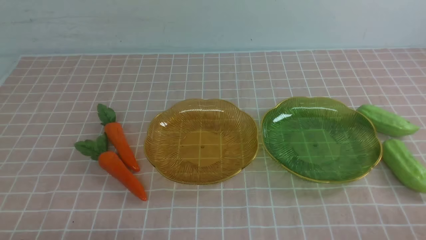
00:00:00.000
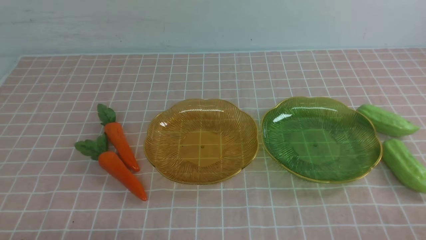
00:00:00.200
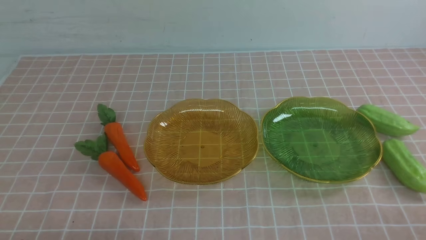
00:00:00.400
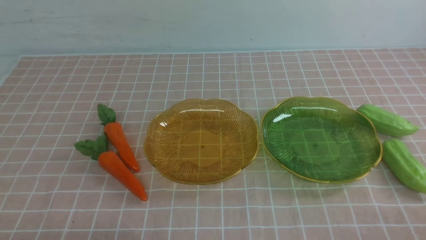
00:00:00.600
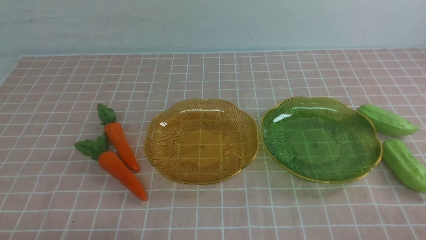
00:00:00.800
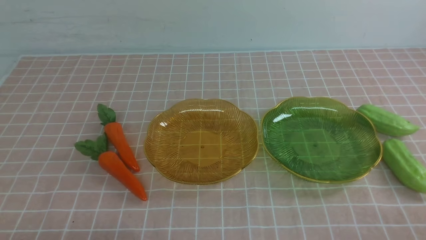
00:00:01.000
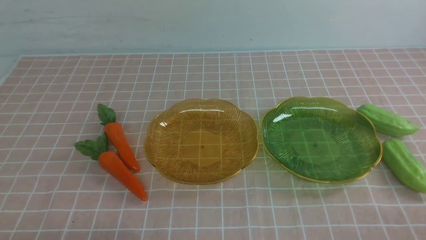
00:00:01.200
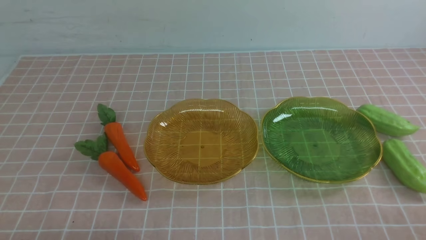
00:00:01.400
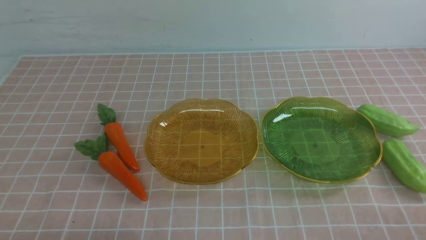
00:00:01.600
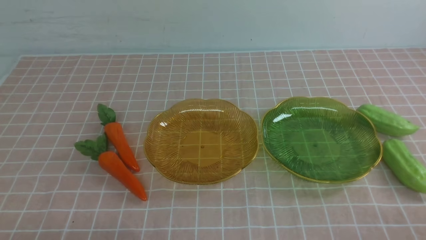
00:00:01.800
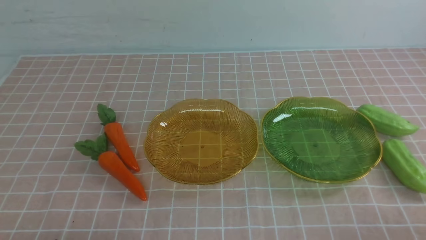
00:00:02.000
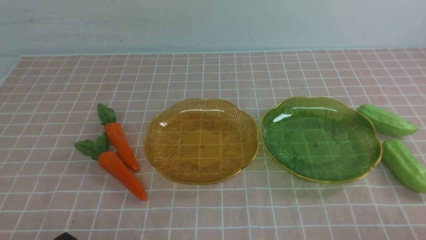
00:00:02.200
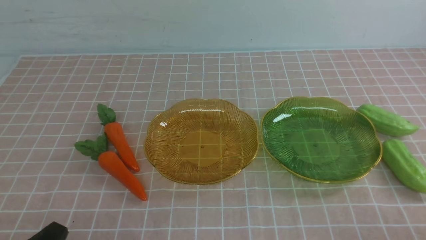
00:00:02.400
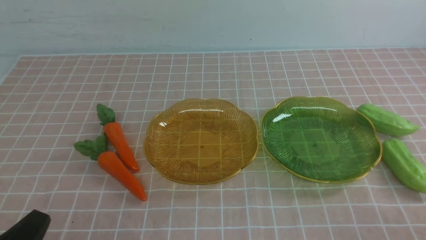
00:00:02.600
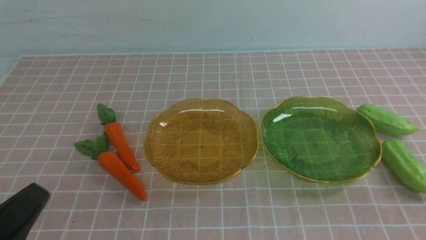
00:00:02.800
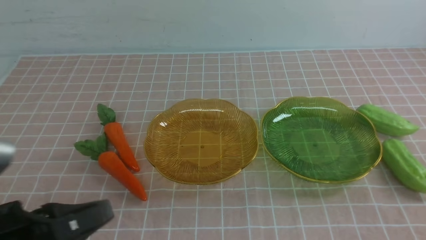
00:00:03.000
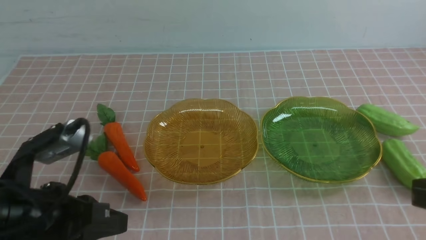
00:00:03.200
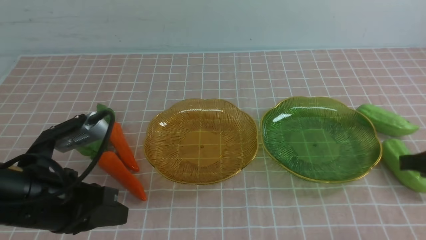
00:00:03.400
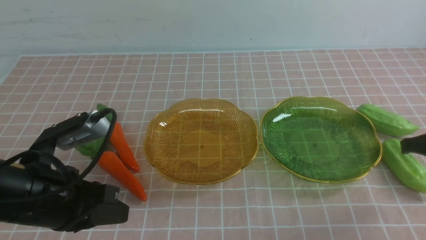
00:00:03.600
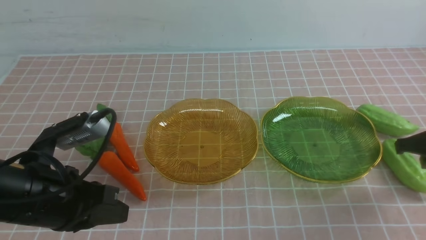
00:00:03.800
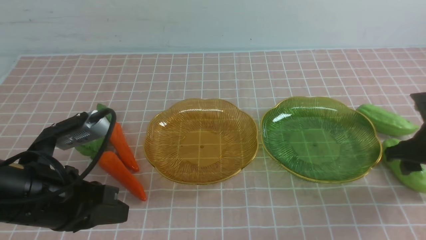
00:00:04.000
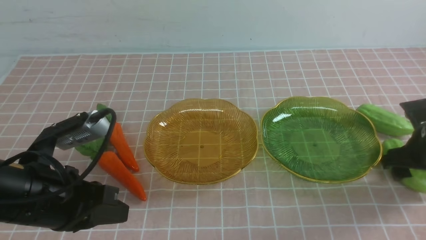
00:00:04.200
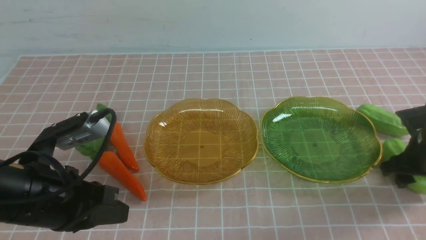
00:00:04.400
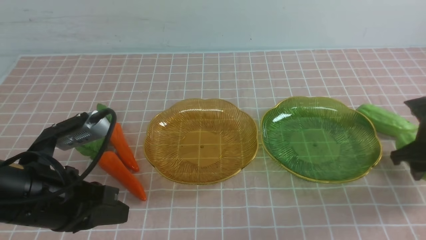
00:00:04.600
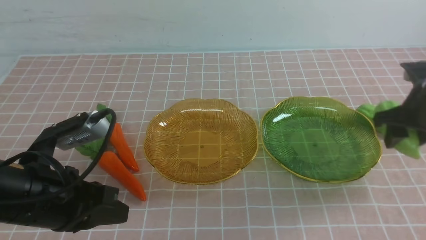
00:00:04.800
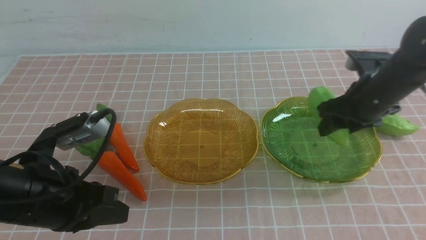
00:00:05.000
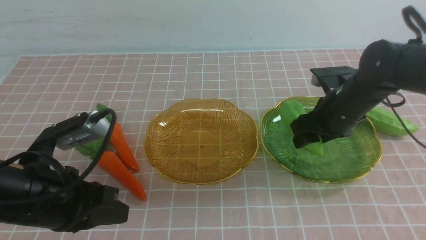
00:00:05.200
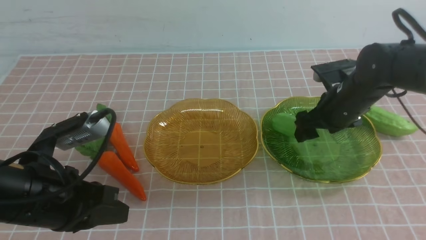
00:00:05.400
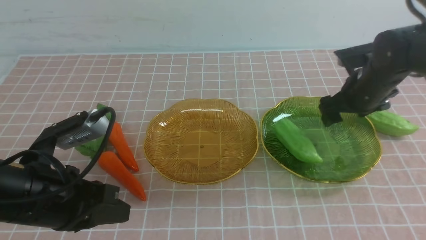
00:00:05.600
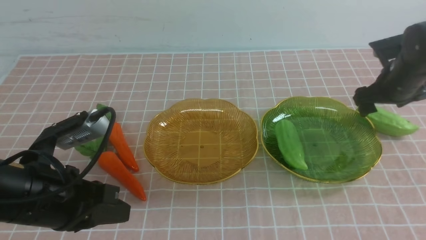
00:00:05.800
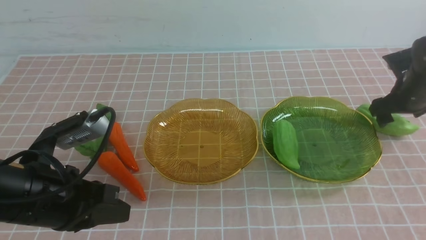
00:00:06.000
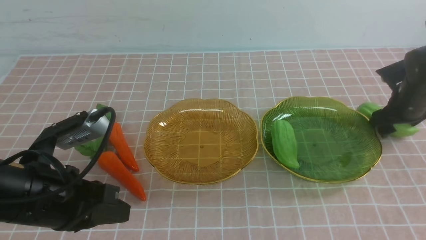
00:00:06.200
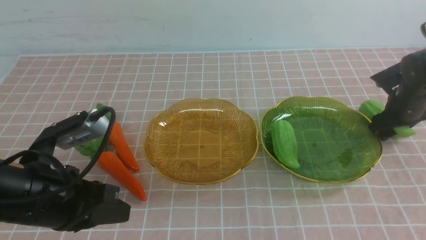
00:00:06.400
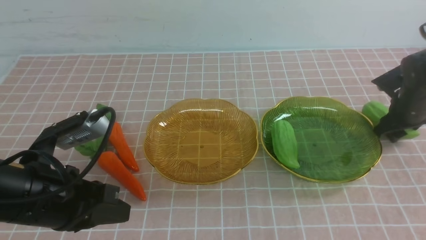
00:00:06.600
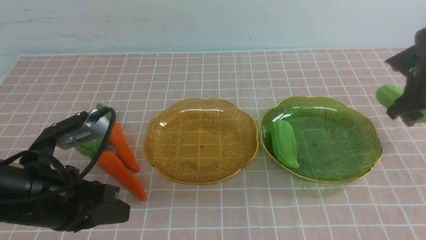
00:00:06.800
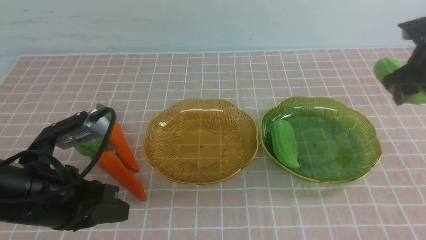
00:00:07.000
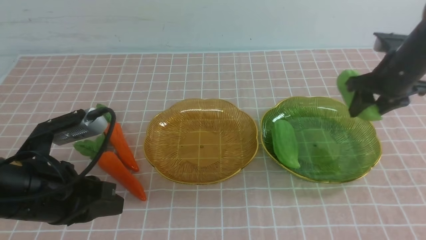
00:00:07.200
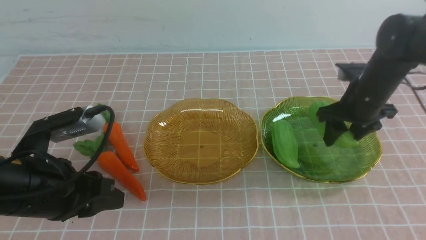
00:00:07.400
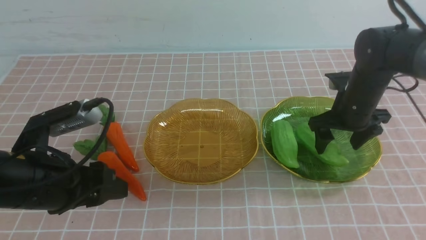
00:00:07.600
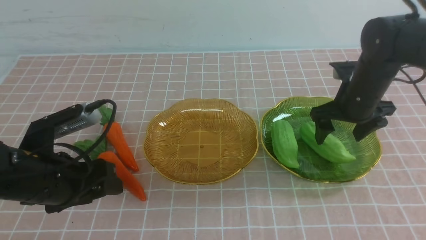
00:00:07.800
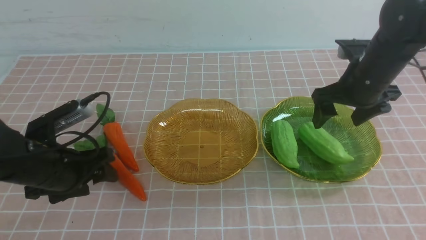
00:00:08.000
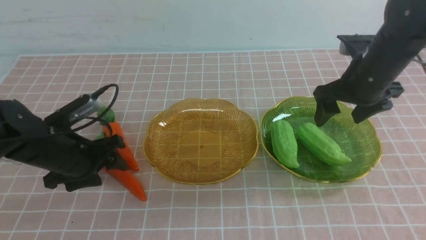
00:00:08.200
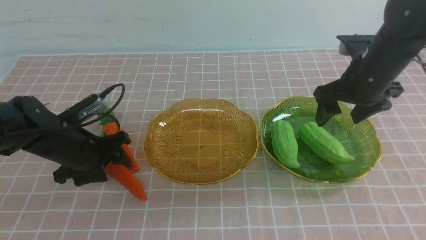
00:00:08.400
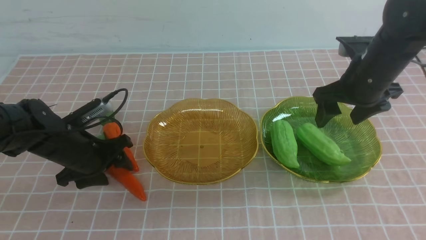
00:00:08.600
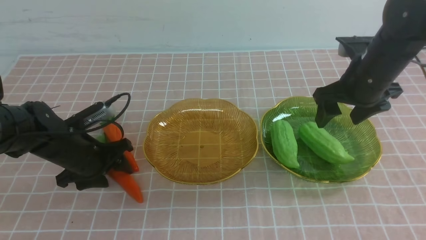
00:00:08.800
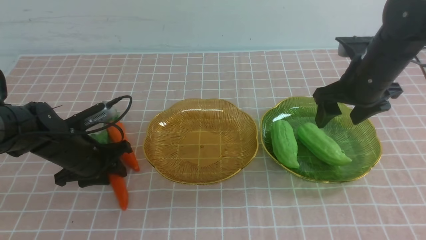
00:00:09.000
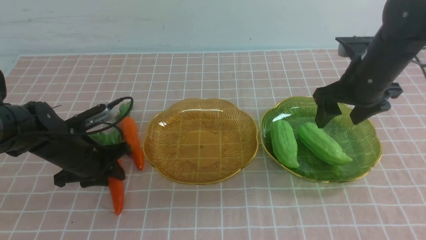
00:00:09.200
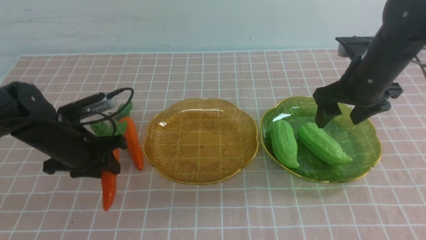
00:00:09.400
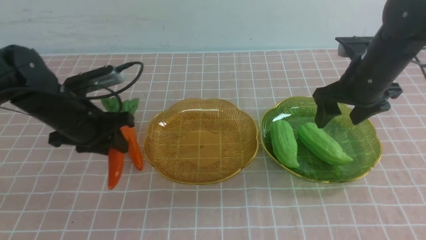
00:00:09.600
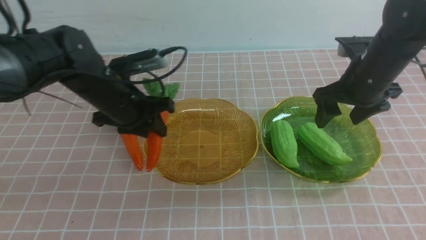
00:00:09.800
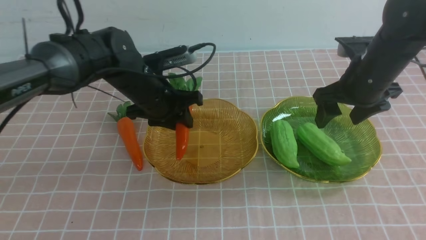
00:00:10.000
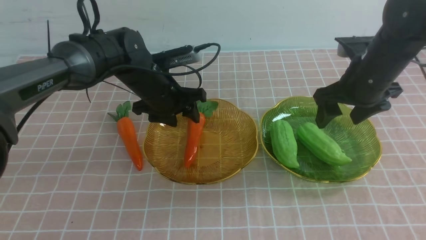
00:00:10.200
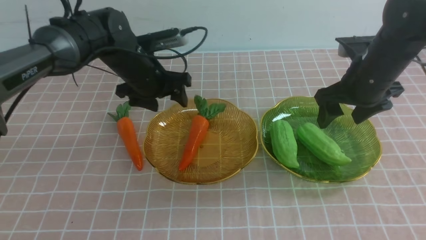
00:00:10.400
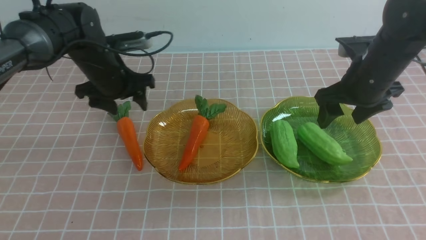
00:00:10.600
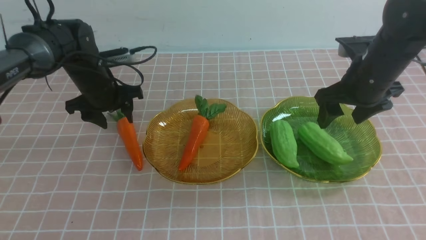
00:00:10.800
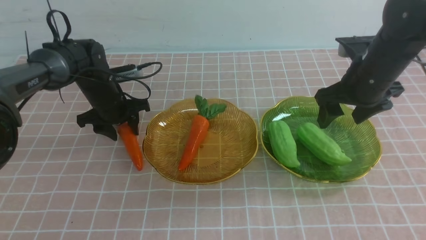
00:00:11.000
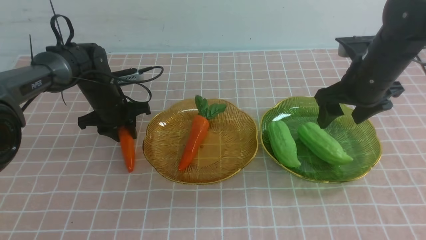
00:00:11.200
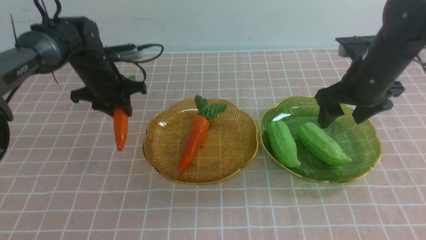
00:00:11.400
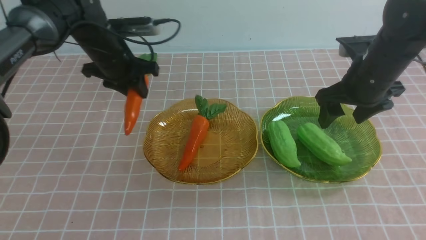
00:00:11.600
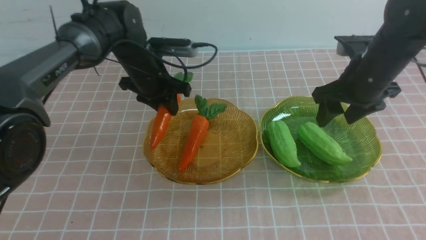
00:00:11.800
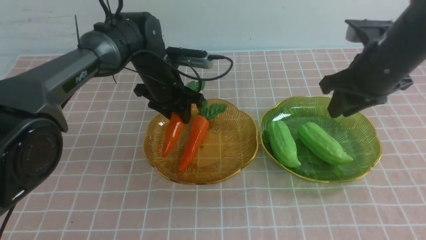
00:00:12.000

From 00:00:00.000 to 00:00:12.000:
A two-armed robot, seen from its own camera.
Step, from 00:00:00.000 to 00:00:07.600: use the right arm to grab a chayote and put it into the right plate.
Step, from 00:00:07.800 to 00:00:10.000: use the left arm to grab a carrot and put it into the left plate.
From 00:00:00.000 to 00:00:01.600: Both grippers stay about where they are.
From 00:00:01.600 to 00:00:03.000: The left gripper shifts approximately 10 cm upward.
From 00:00:03.000 to 00:00:04.400: The left gripper is displaced forward by approximately 10 cm. Meanwhile the right gripper is displaced forward and downward by roughly 25 cm, and opens its fingers.
From 00:00:04.400 to 00:00:06.000: The right gripper shifts about 10 cm forward, and goes to the left and returns, some 10 cm each way.
From 00:00:06.000 to 00:00:07.600: The right gripper travels to the left, upward and backward by roughly 15 cm. The left gripper moves forward, roughly 5 cm, and opens.
From 00:00:07.600 to 00:00:09.000: The left gripper is displaced forward and downward by some 15 cm, and closes its fingers.
From 00:00:09.000 to 00:00:10.400: The left gripper moves forward, to the right and upward, roughly 15 cm, and opens.
From 00:00:10.400 to 00:00:12.000: The right gripper moves backward and upward, approximately 15 cm, and closes its fingers.

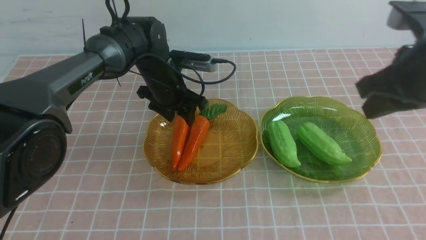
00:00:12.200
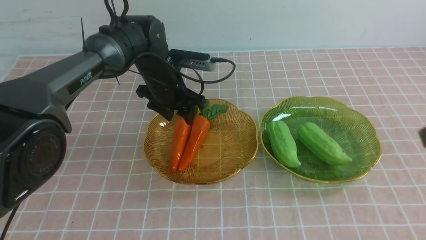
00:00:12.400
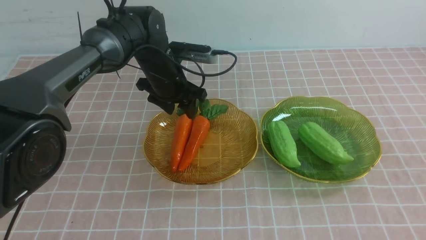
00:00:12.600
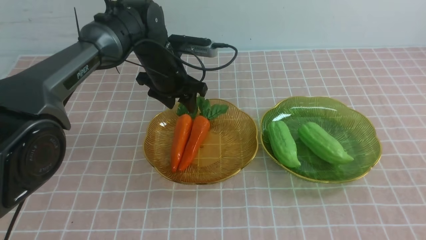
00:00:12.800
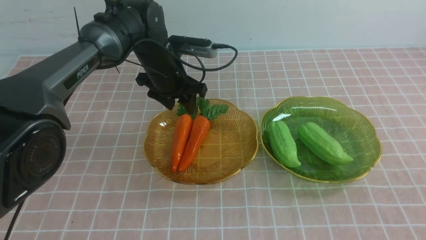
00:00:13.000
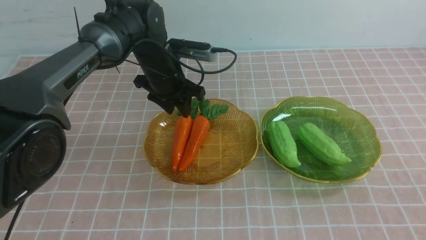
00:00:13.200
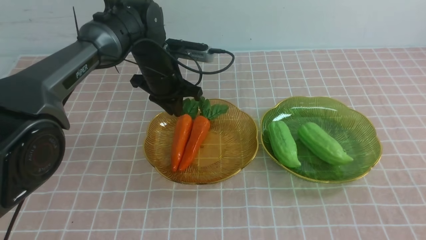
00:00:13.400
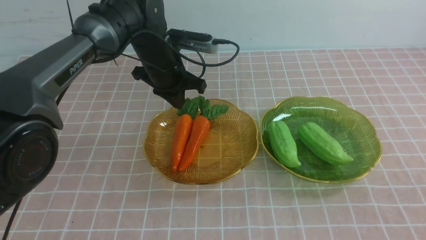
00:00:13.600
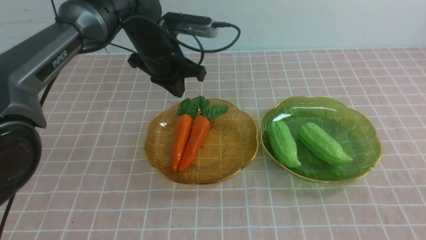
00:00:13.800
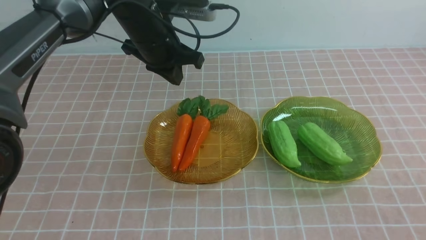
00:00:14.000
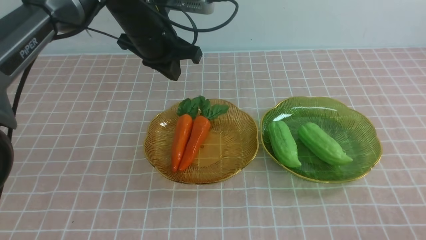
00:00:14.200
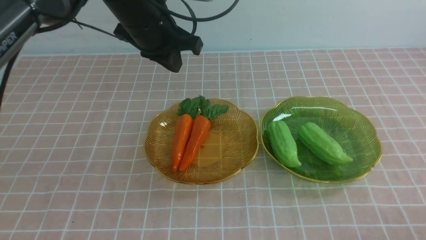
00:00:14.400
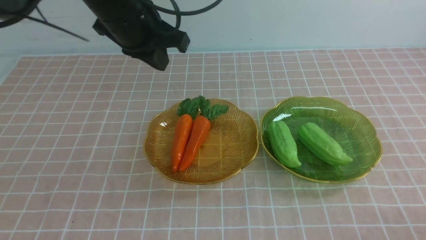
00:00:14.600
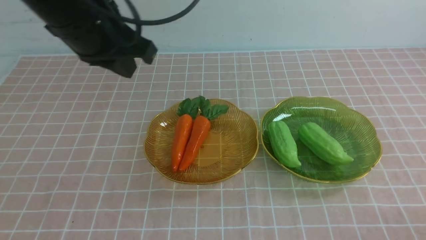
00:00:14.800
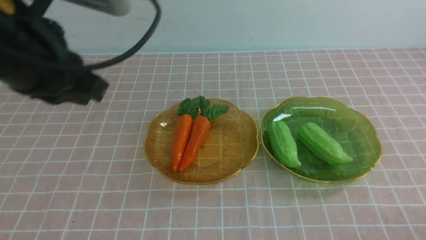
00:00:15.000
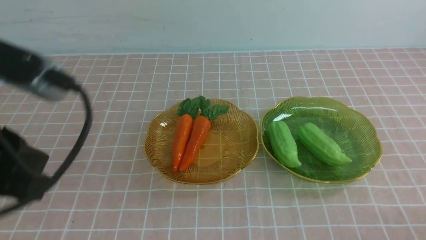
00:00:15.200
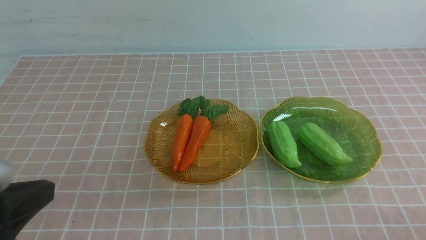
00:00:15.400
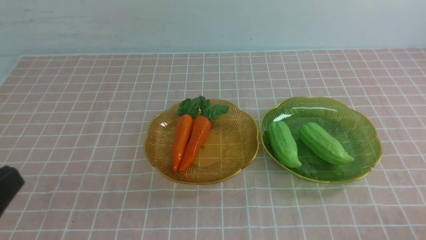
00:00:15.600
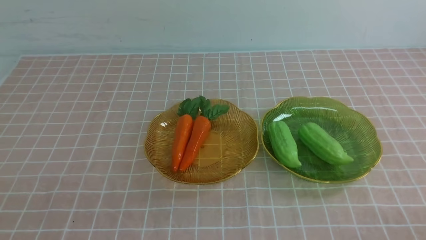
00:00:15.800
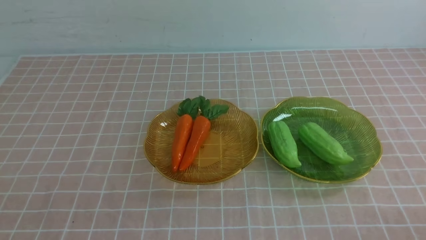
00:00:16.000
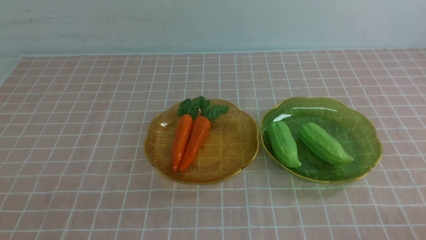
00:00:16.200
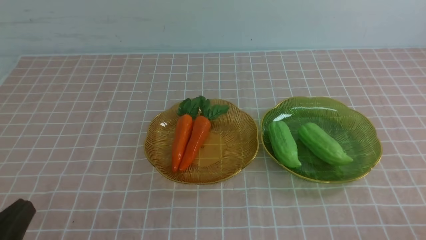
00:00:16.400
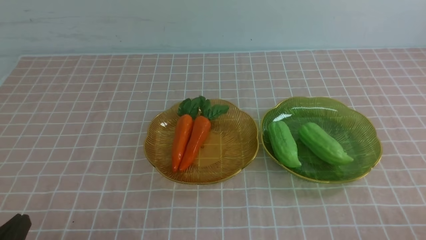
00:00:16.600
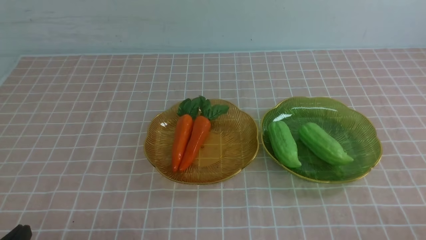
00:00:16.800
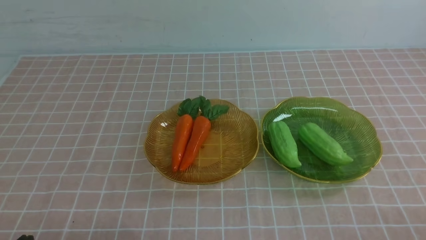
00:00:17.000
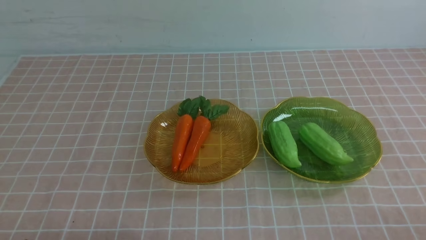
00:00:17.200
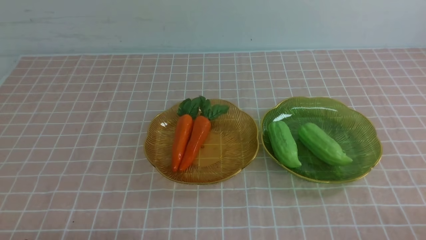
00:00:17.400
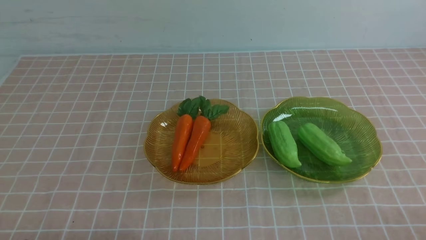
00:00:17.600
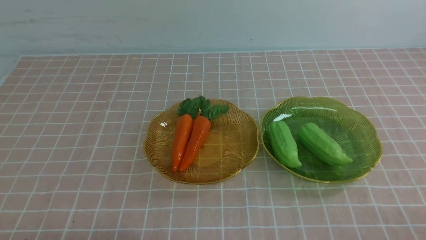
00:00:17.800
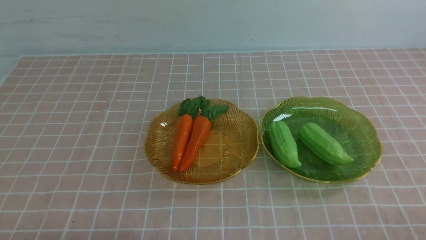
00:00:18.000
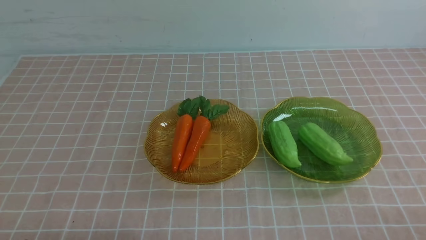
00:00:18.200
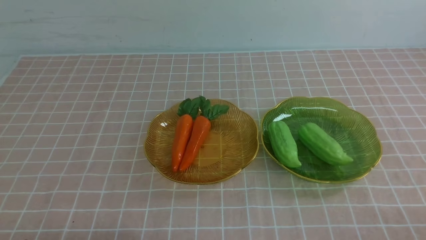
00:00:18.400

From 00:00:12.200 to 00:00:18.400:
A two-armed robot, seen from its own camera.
From 00:00:12.200 to 00:00:13.800: The right gripper is displaced backward and downward by some 15 cm; the left gripper goes roughly 10 cm upward, and closes.
From 00:00:13.800 to 00:00:15.400: The right gripper goes about 10 cm downward. Meanwhile the left gripper heads backward, covering roughly 35 cm.
From 00:00:15.400 to 00:00:16.800: The left gripper shifts some 15 cm downward.
